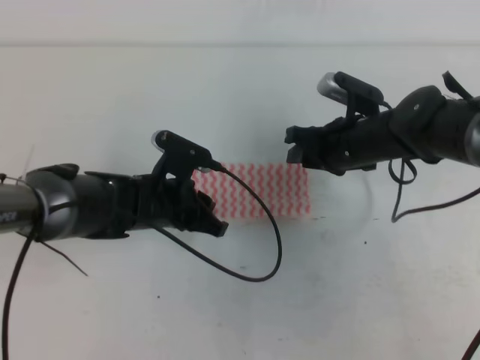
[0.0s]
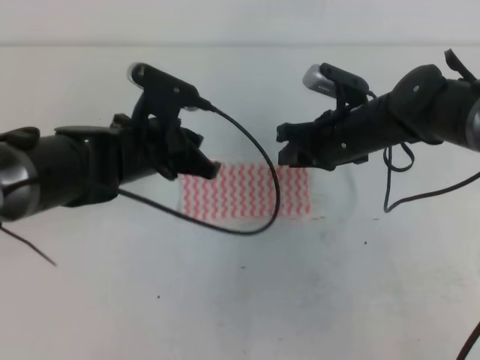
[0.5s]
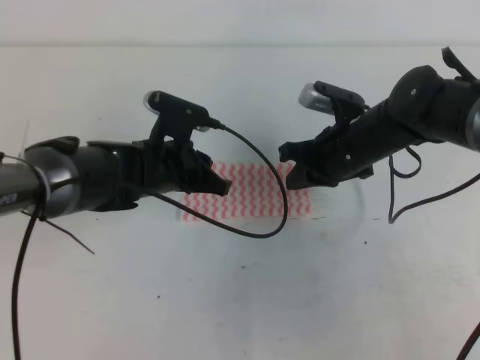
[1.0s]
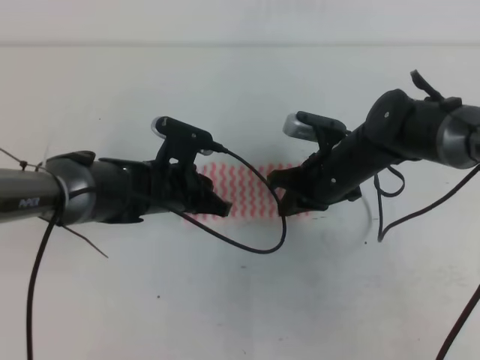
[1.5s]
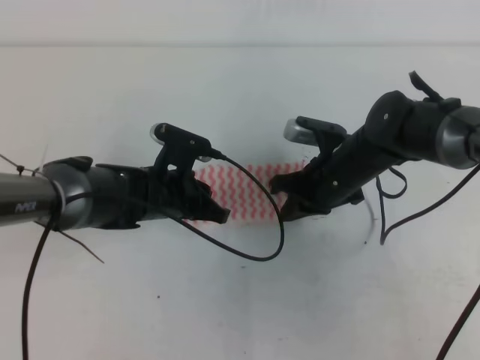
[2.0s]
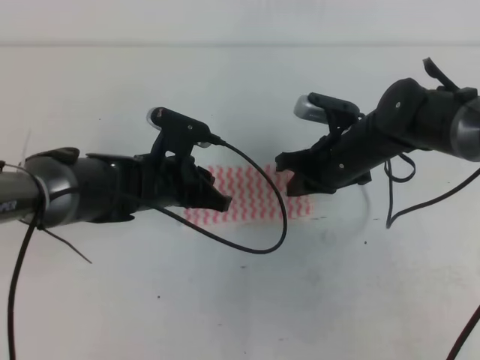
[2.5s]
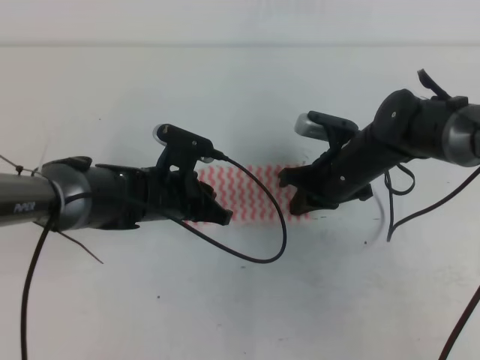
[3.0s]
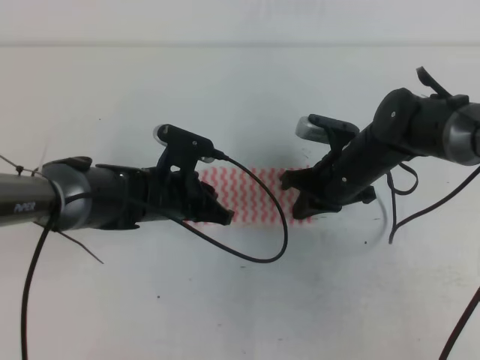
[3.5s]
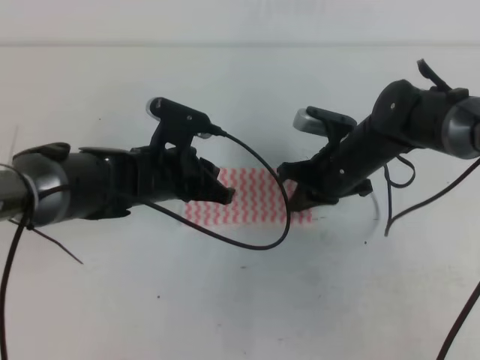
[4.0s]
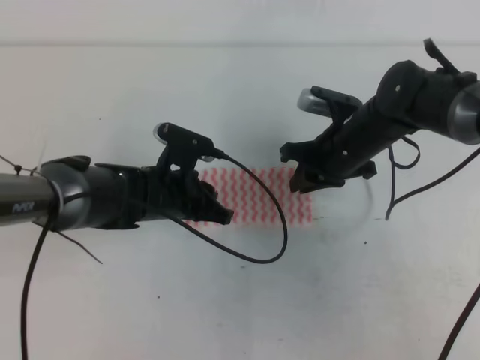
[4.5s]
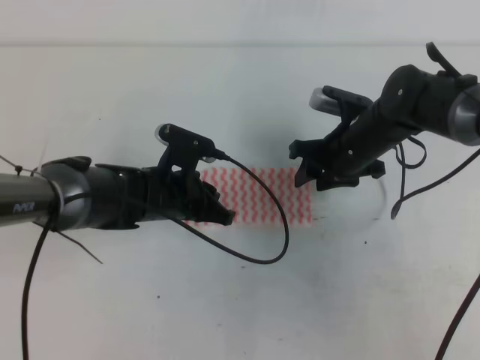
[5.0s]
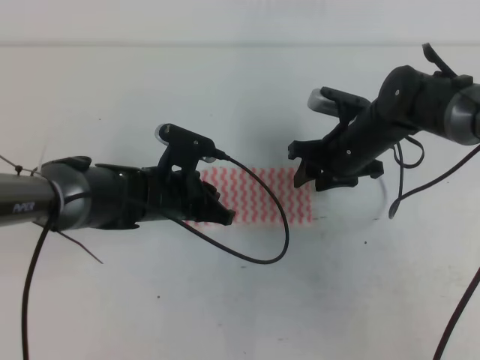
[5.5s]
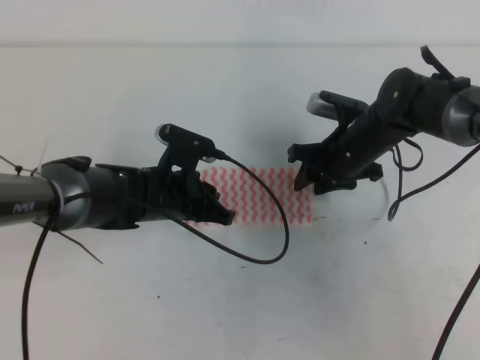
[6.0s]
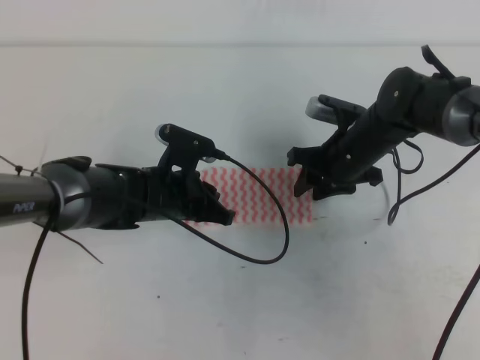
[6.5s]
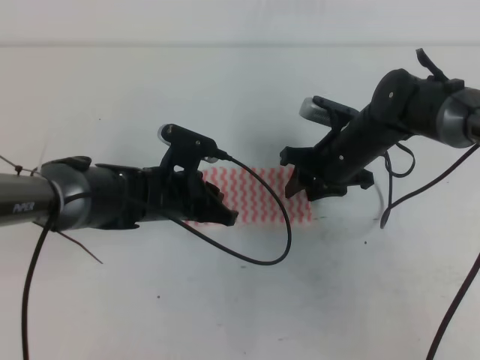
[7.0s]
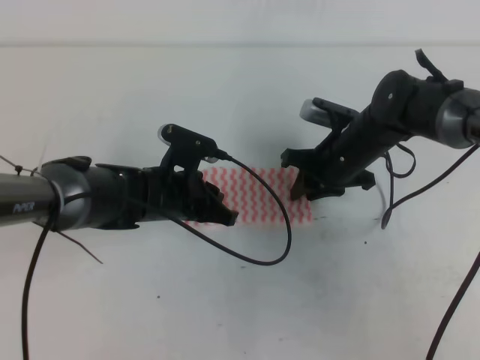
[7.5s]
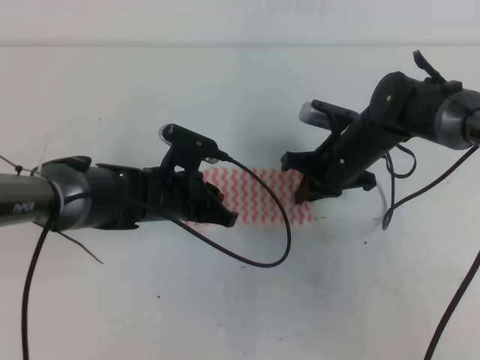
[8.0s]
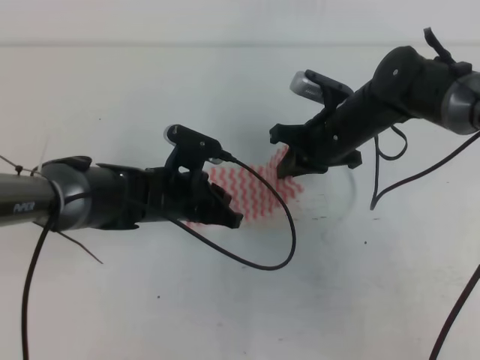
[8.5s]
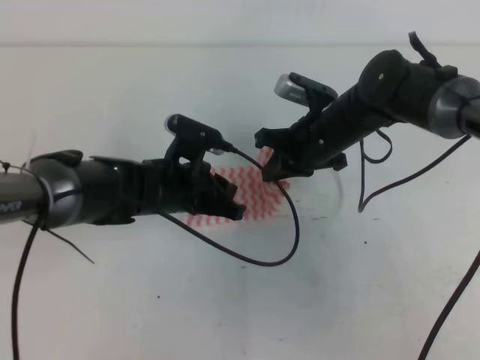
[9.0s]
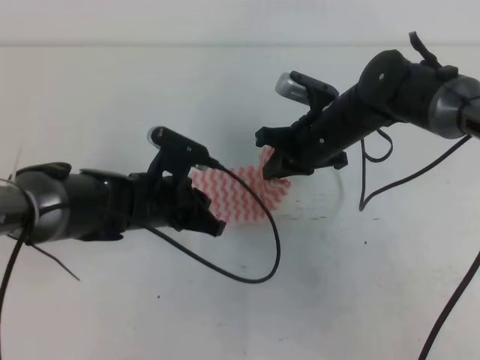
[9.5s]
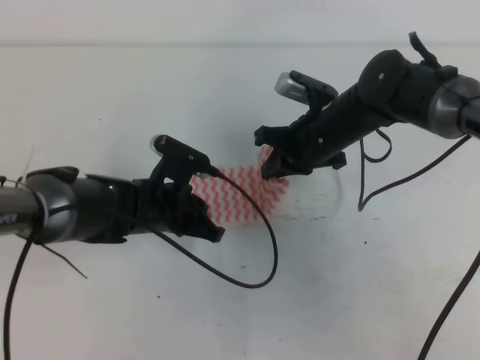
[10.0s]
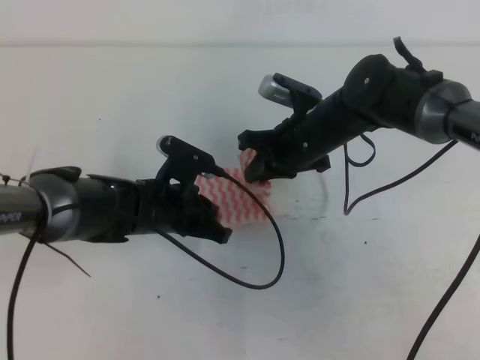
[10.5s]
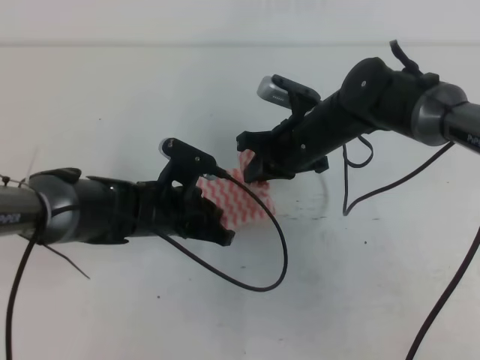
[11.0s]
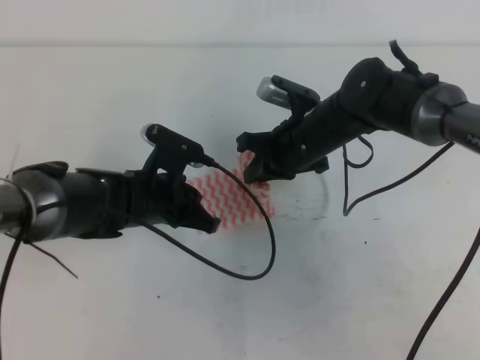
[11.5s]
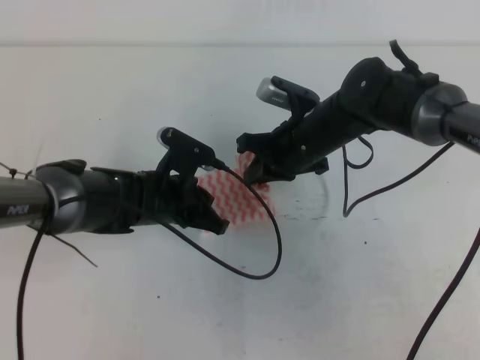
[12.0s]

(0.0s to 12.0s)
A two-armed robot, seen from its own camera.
0.0s - 2.0s: The right gripper closes; the left gripper travels upward and back again, about 5 cm each way.
2.0s - 4.0s: There are only small adjustments of the grippers.
4.0s - 6.0s: The right gripper opens up.
6.0s - 8.0s: The right gripper closes.
10.0s - 12.0s: The grippers move only a little.

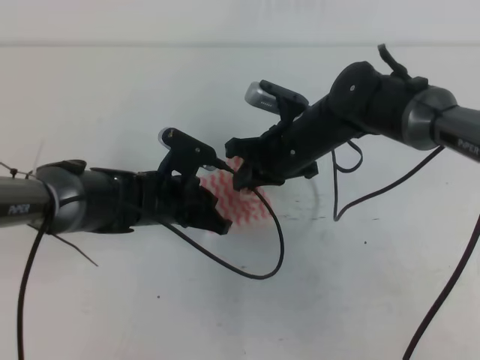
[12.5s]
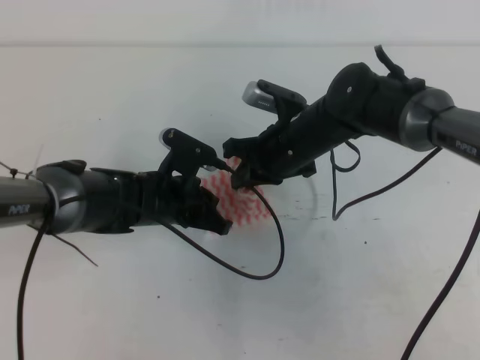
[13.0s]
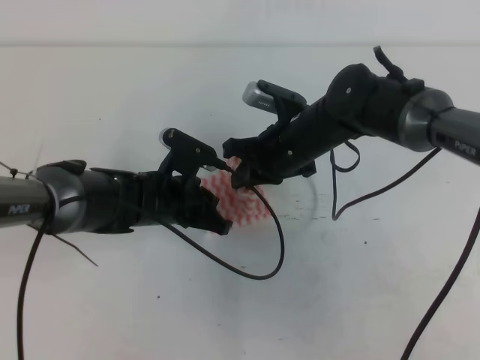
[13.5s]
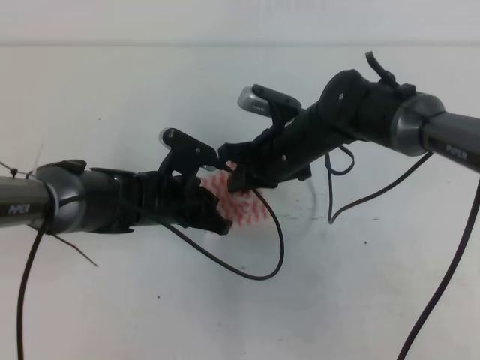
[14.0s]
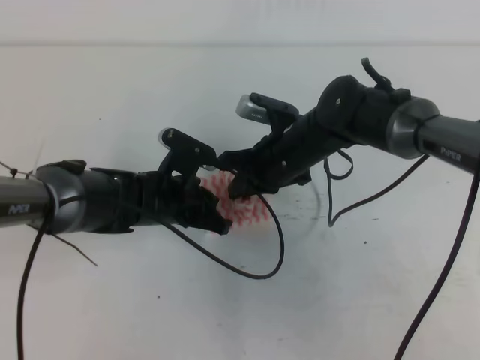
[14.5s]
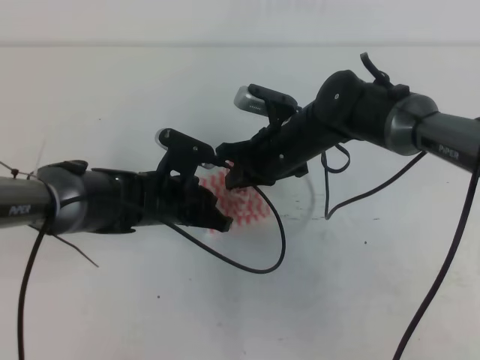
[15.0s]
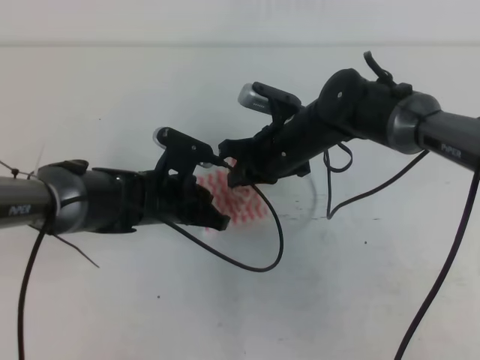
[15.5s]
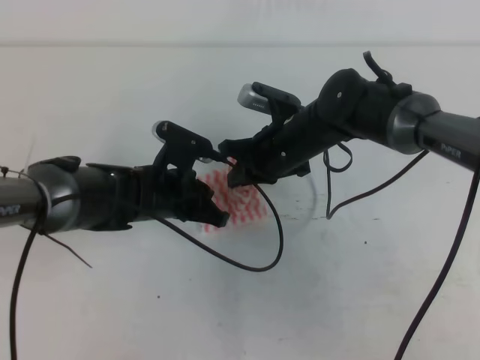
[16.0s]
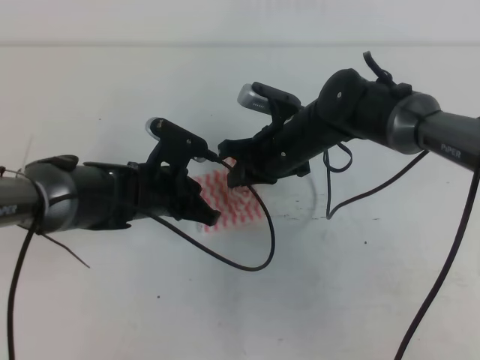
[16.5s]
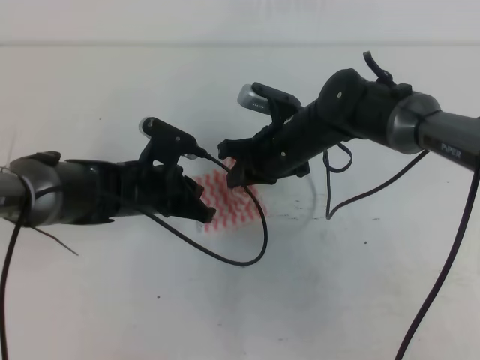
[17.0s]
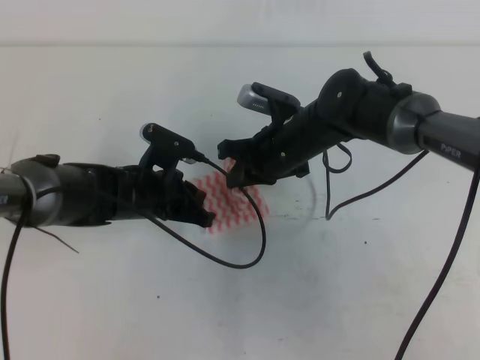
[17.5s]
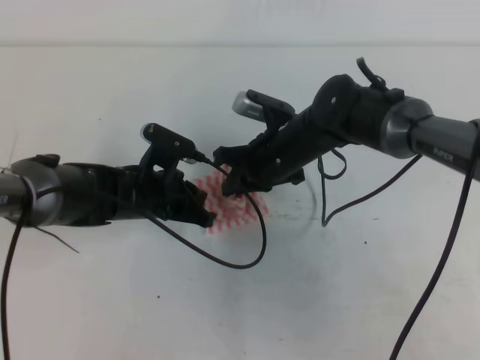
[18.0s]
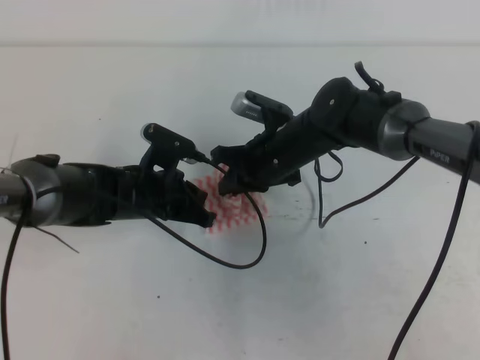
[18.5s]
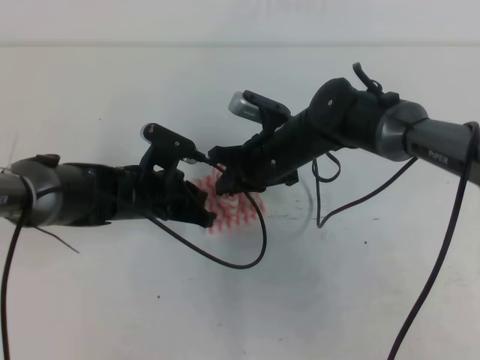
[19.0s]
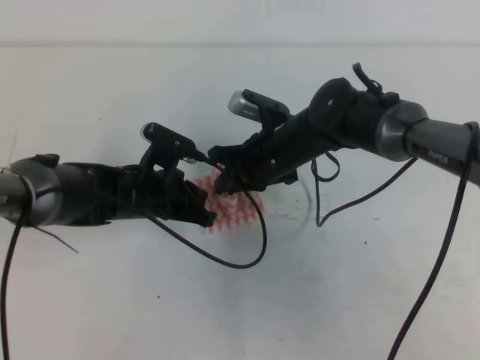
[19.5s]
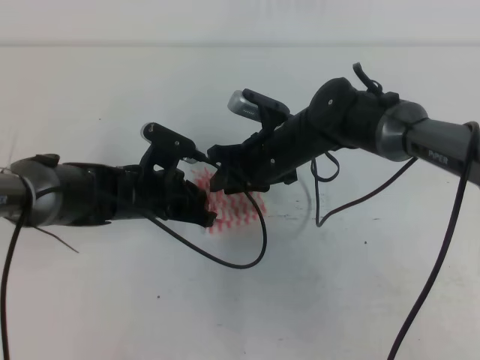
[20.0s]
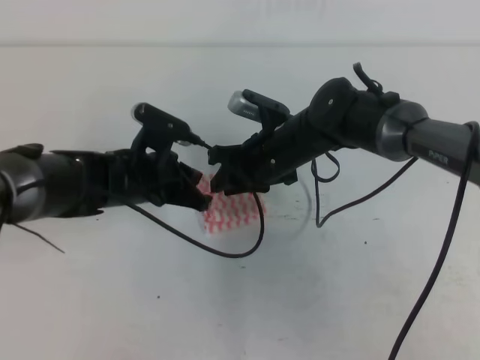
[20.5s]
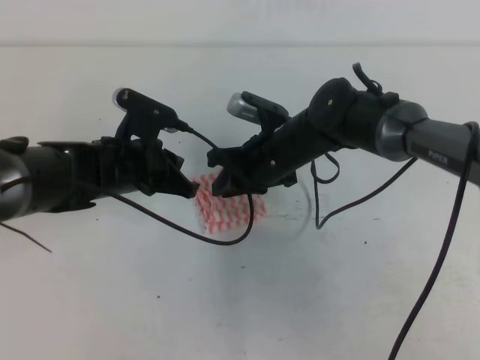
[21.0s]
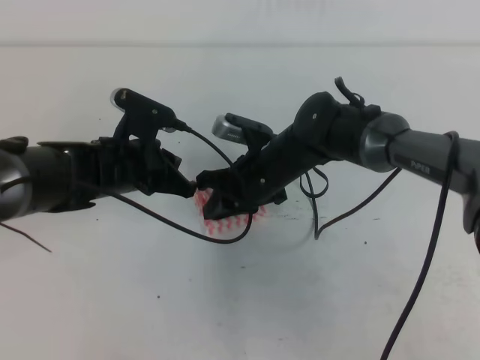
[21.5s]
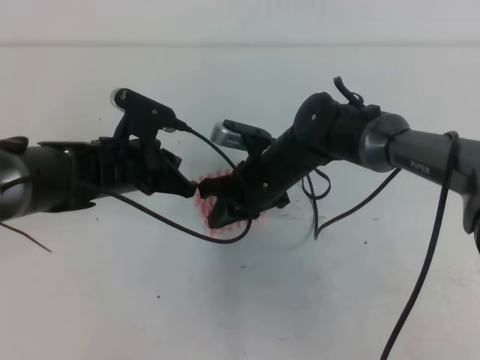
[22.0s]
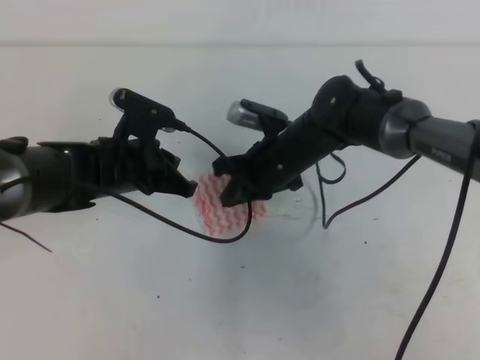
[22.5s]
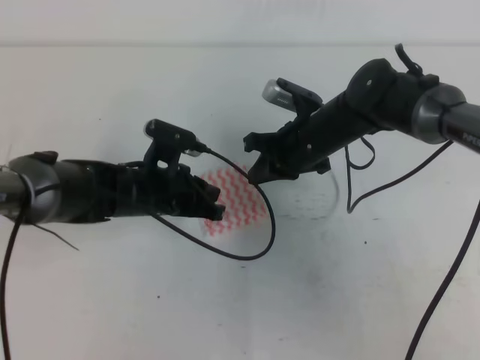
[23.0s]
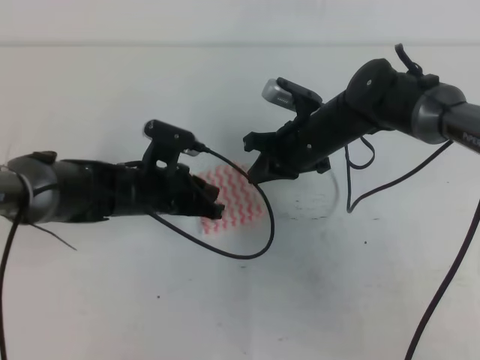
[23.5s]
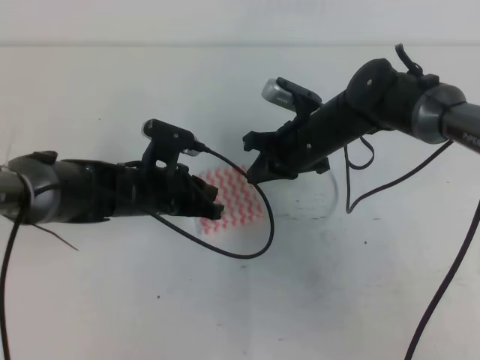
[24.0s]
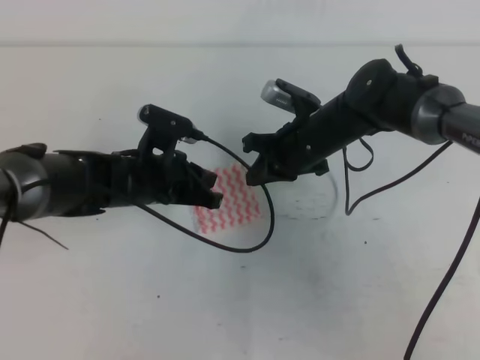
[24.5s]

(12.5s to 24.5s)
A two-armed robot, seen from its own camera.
12.5s - 18.5s: The grippers move only a little.
18.5s - 20.5s: The right gripper opens.
20.5s - 22.5s: The right gripper closes its fingers.
22.5s - 24.5s: The grippers stay close to where they were, moving slightly.

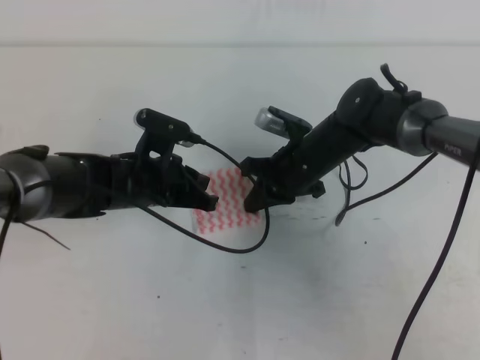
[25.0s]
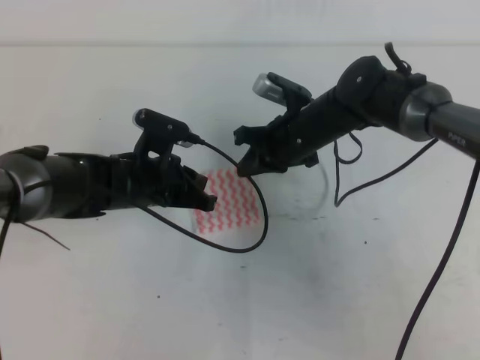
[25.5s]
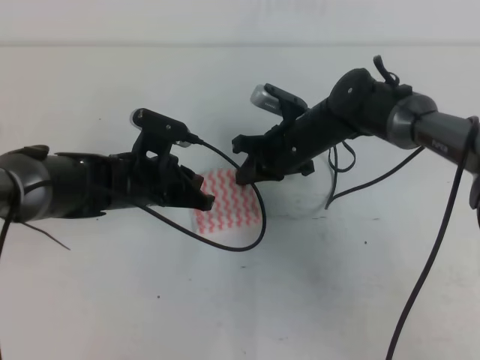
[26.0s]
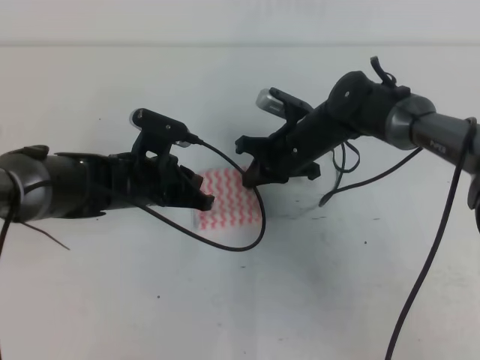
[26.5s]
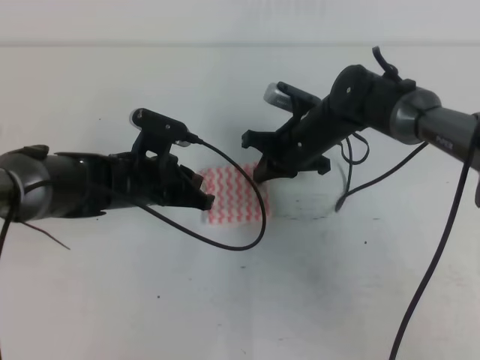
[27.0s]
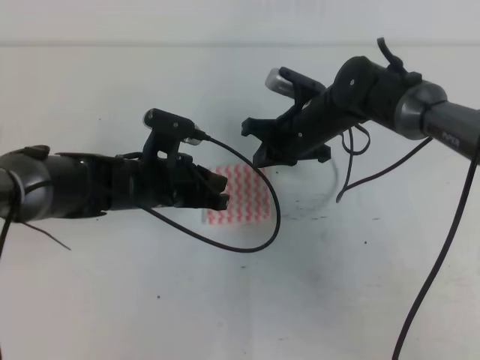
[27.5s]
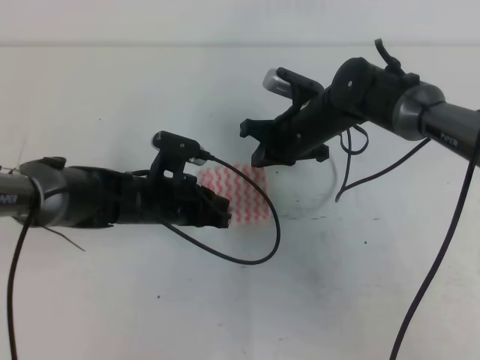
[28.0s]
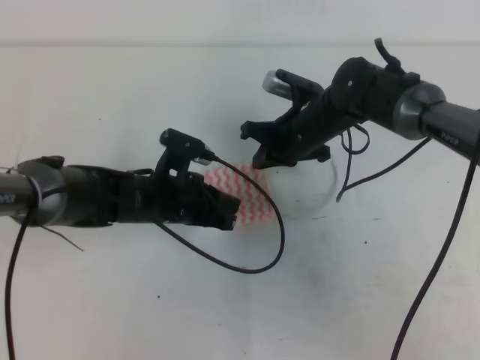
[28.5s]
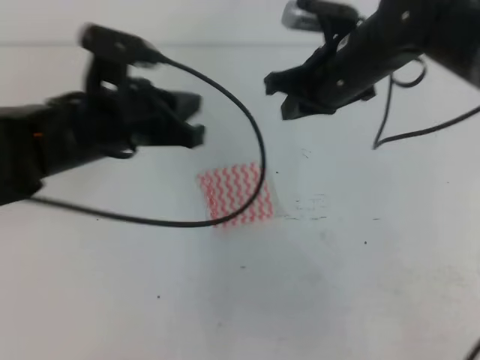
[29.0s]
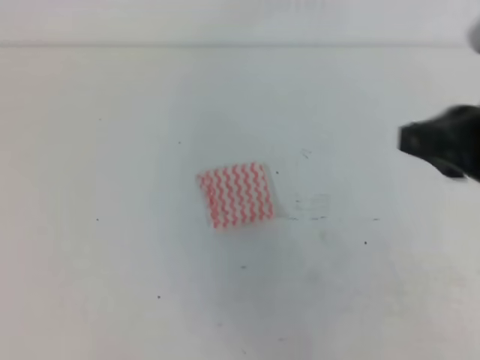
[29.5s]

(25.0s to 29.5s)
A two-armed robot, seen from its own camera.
25.0s - 27.0s: The grippers move only a little.
27.0s - 29.5s: The left gripper travels backward, upward and to the left by approximately 35 cm. Meanwhile the right gripper is displaced backward, upward and to the right by about 35 cm.
